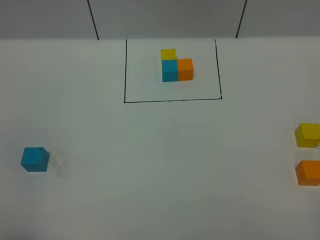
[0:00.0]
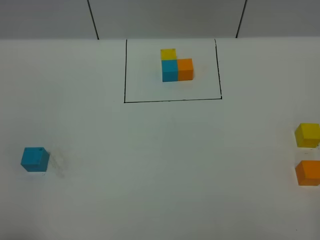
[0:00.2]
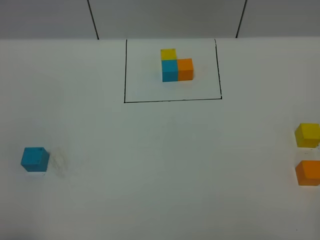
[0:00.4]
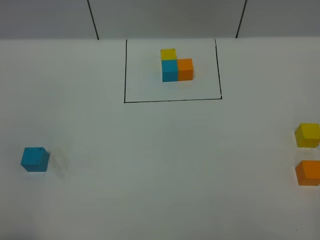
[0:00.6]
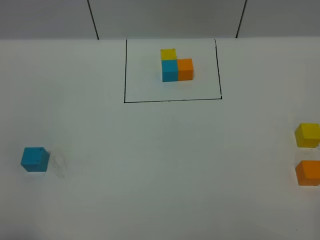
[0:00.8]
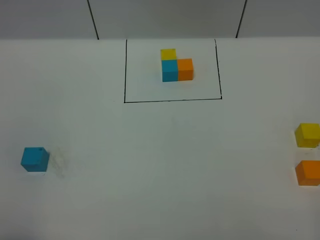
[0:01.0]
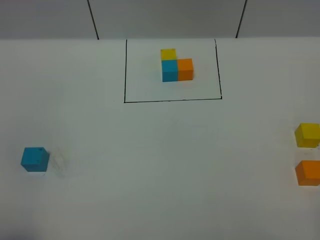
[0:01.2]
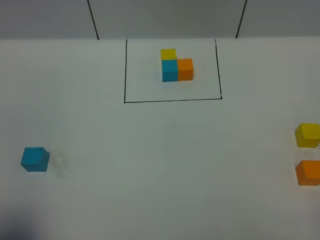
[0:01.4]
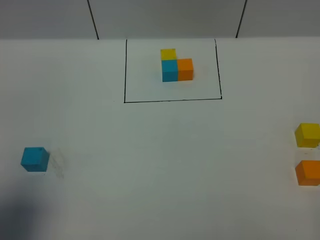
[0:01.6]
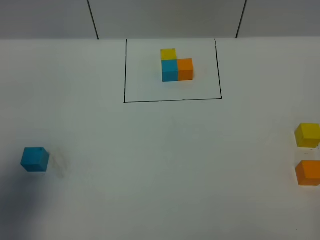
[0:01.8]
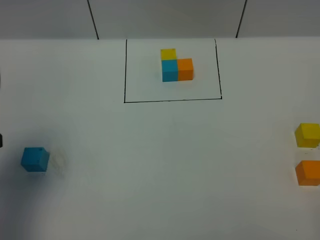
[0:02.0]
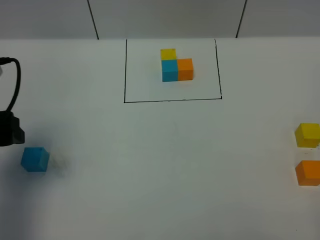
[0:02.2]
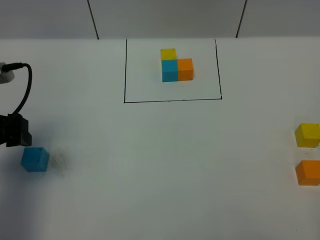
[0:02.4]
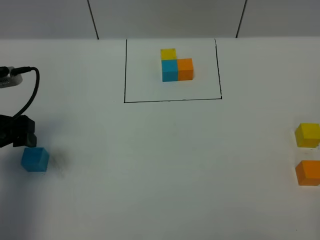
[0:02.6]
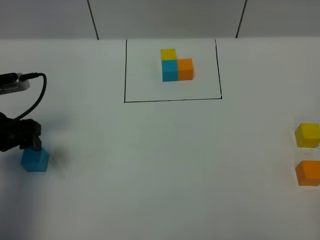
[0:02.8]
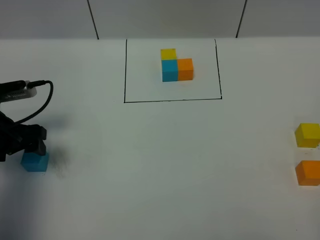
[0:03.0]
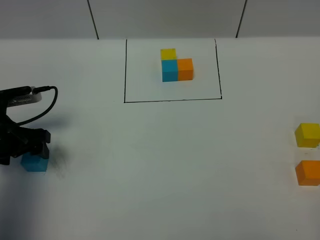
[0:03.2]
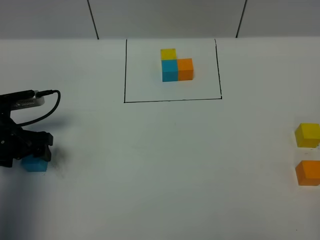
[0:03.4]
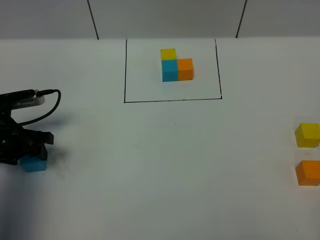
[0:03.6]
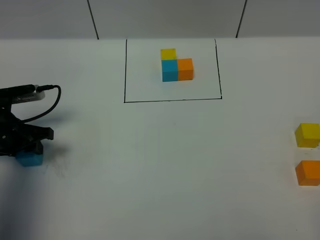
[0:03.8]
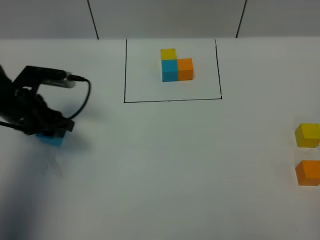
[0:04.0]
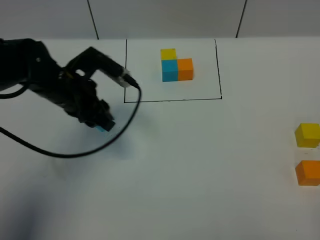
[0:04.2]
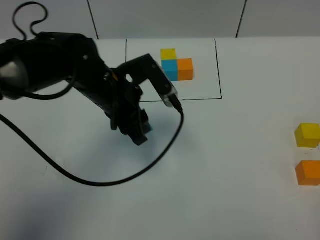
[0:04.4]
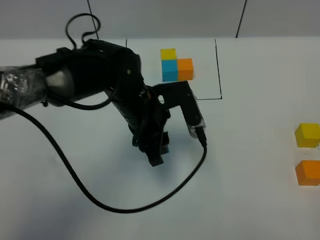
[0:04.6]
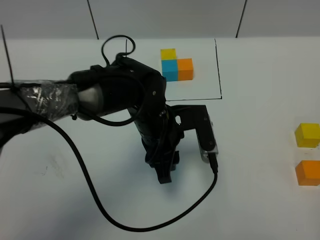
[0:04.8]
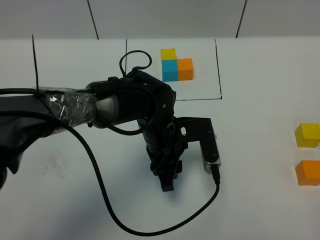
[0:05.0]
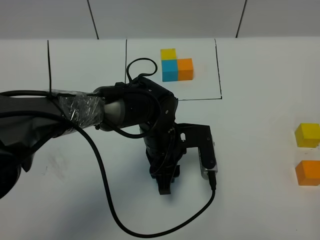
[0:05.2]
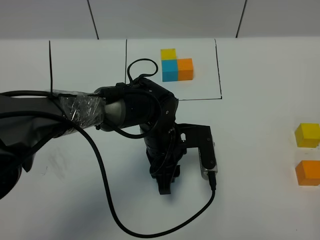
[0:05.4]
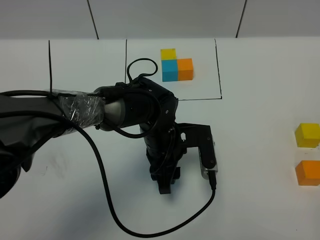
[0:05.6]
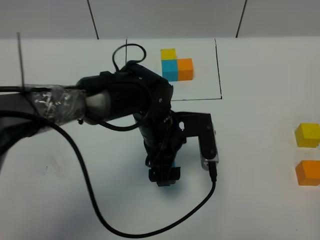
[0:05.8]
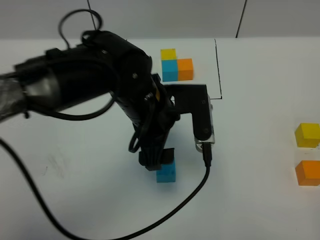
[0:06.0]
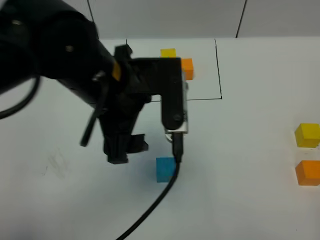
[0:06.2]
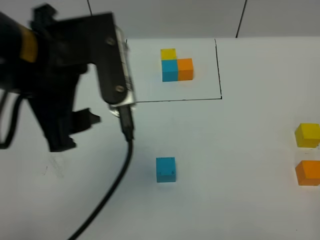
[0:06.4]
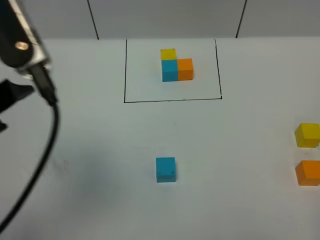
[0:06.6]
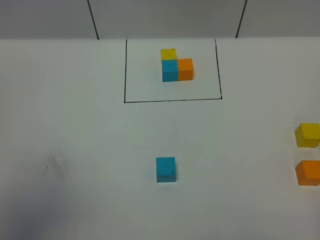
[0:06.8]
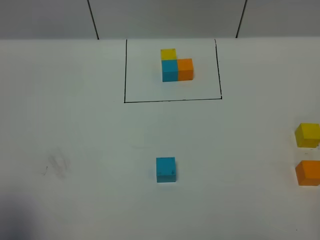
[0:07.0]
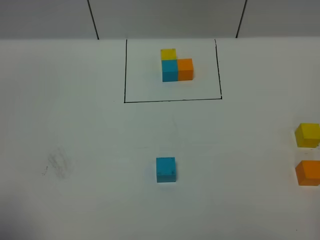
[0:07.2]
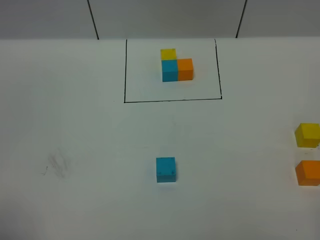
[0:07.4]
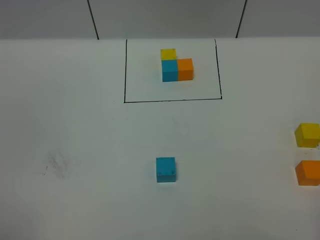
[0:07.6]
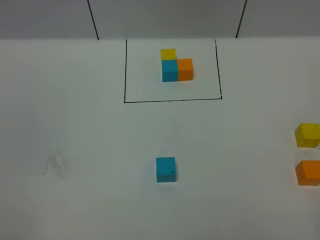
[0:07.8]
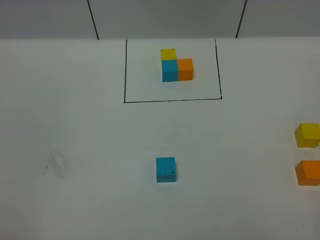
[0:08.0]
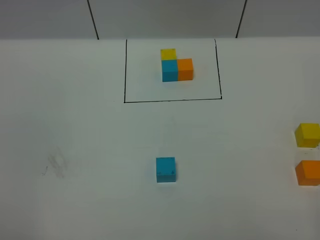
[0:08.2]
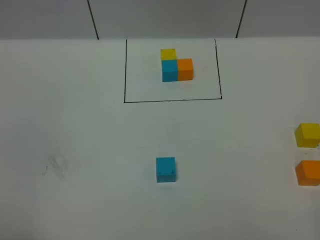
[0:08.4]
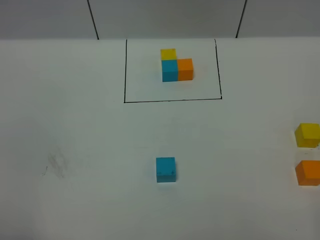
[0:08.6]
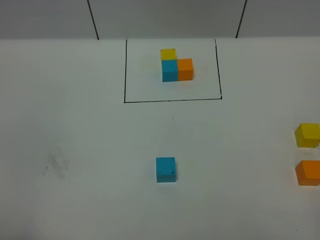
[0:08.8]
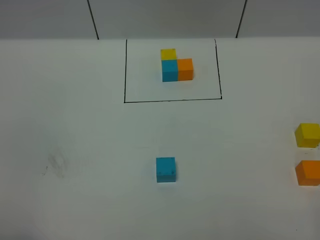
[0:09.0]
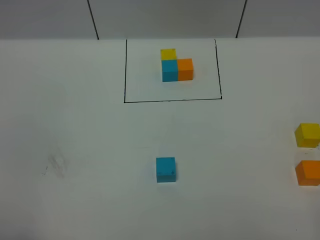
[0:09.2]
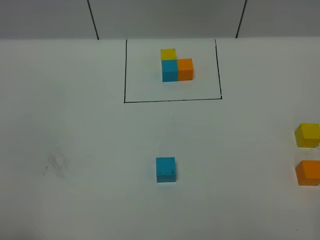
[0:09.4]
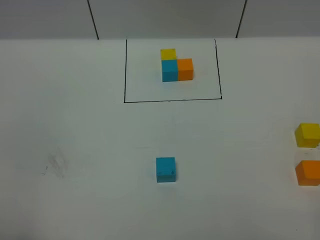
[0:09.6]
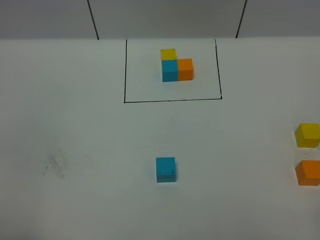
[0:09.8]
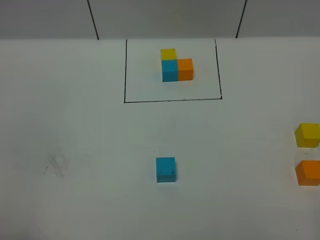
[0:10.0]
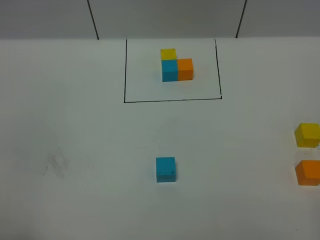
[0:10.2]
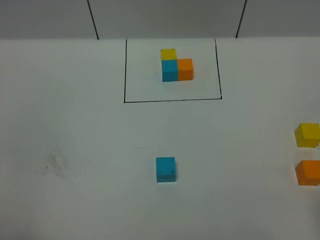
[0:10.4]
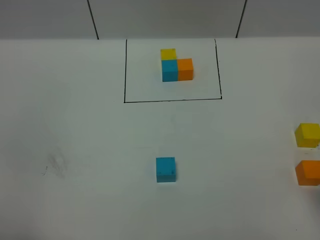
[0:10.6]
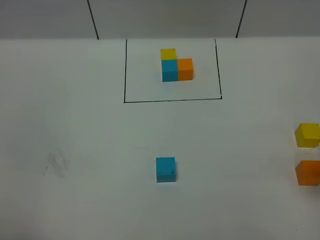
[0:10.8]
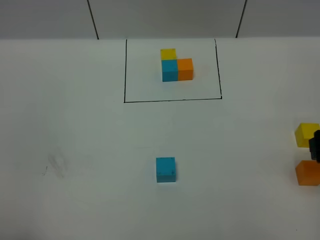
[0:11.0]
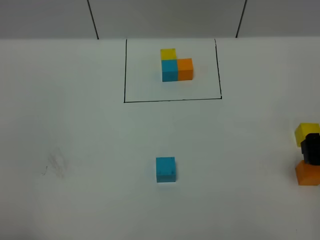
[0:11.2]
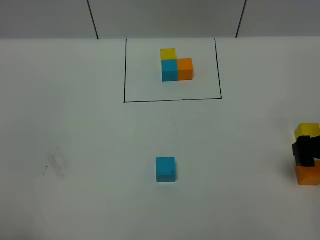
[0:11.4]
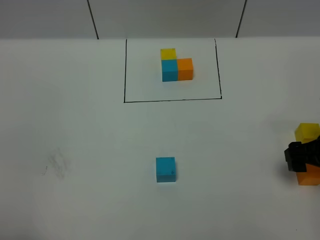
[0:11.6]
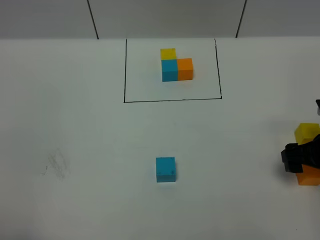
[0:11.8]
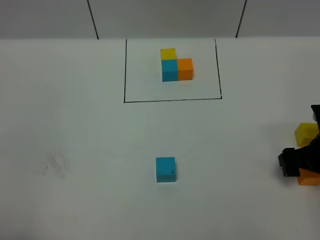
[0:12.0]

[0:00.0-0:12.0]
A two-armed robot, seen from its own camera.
Task of the whole recording: According to the building block template in front, assemble the scattered blocks together.
Step, 0:02.0 to 0:05.6: Put the blue cube in the center of the table.
0:00.0 to 0:01.6: The left gripper shifts some 10 cm forward.
0:01.6 to 0:03.0: The left gripper shifts some 25 cm forward and downward.
0:03.0 to 0:04.4: The left gripper moves to the right, roughly 20 cm, and closes.
0:04.4 to 0:06.0: The left gripper heads to the right and backward, covering roughly 10 cm, travels downward and back again, approximately 10 cm each way, and opens up.
0:06.0 to 0:07.6: The left gripper heads to the left and backward, covering approximately 40 cm.
0:10.4 to 0:12.0: The right gripper moves forward and downward, roughly 25 cm.

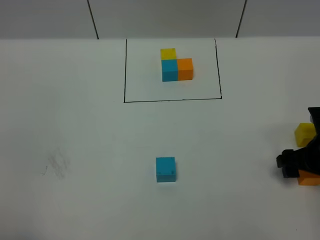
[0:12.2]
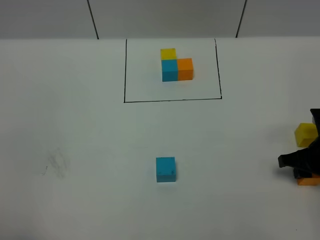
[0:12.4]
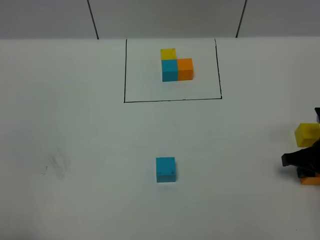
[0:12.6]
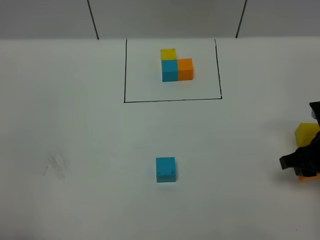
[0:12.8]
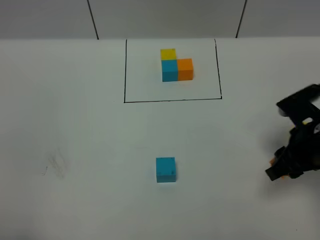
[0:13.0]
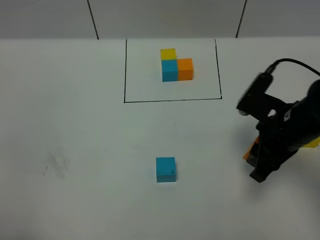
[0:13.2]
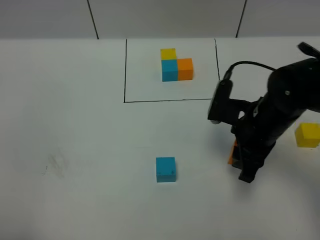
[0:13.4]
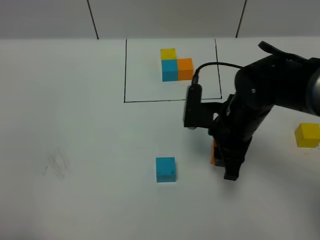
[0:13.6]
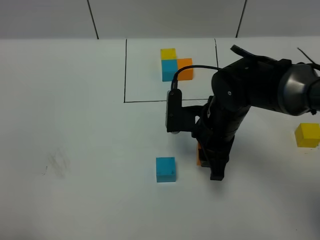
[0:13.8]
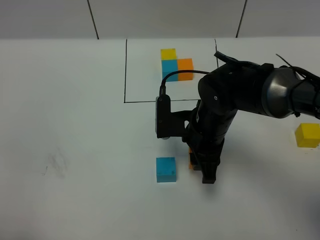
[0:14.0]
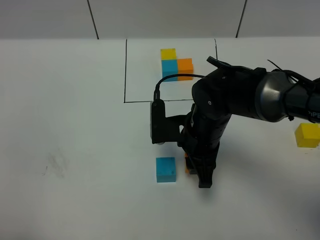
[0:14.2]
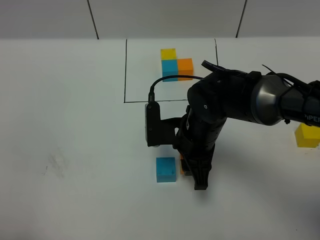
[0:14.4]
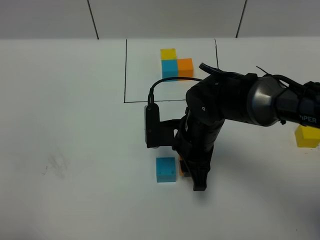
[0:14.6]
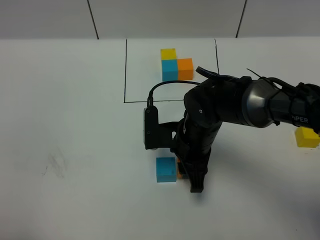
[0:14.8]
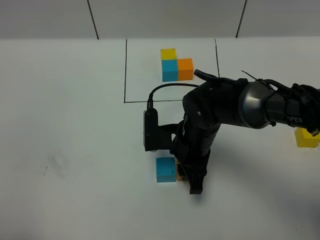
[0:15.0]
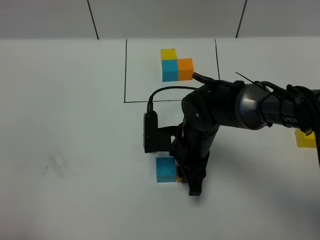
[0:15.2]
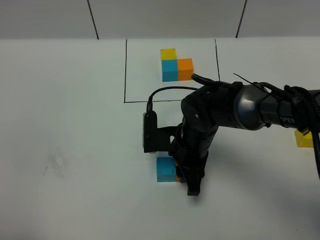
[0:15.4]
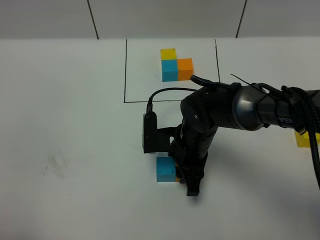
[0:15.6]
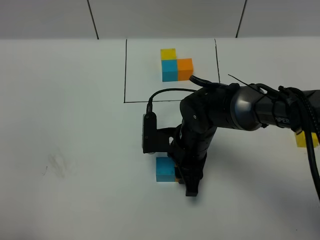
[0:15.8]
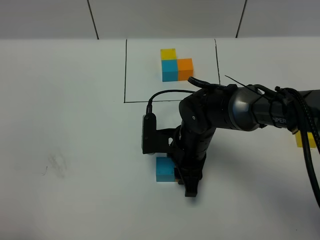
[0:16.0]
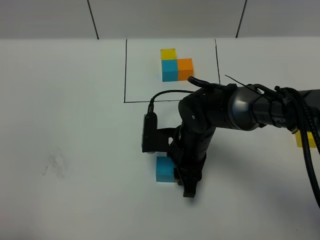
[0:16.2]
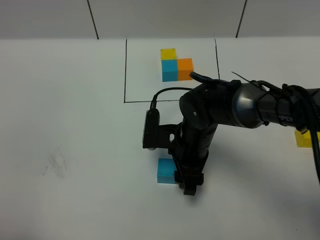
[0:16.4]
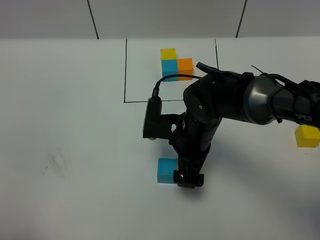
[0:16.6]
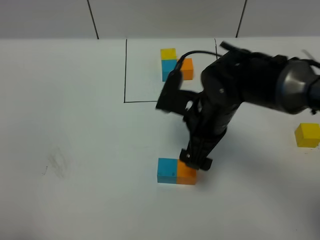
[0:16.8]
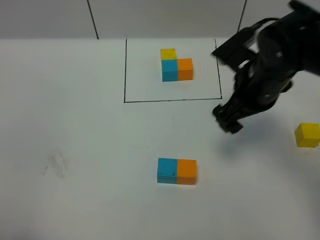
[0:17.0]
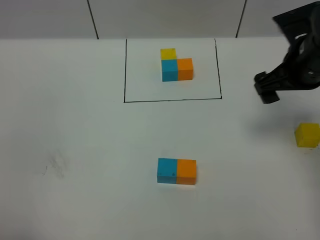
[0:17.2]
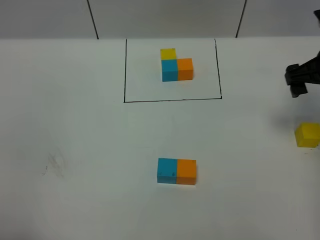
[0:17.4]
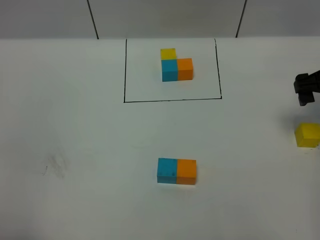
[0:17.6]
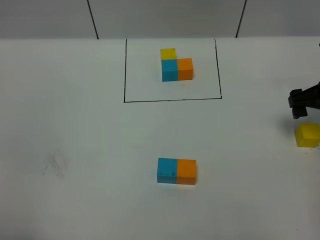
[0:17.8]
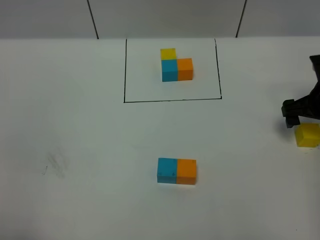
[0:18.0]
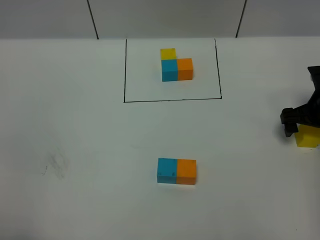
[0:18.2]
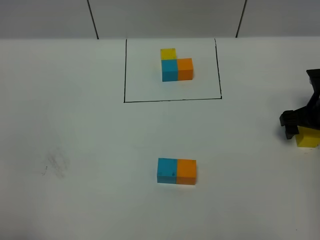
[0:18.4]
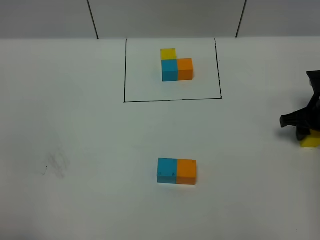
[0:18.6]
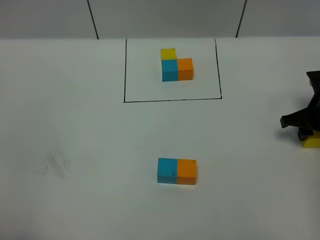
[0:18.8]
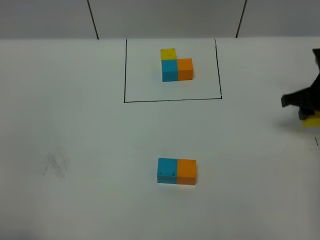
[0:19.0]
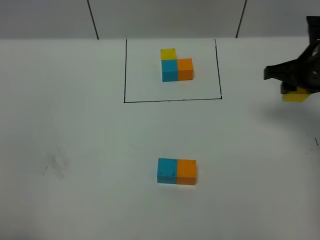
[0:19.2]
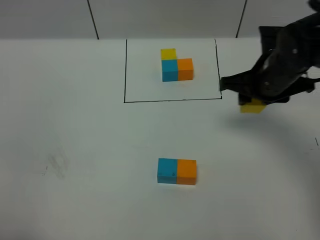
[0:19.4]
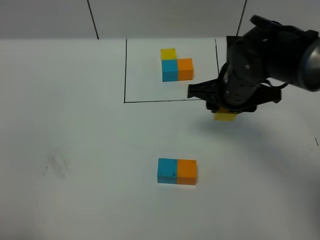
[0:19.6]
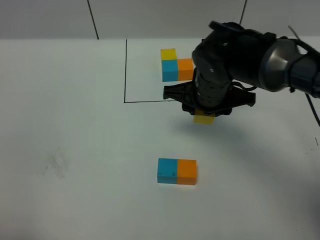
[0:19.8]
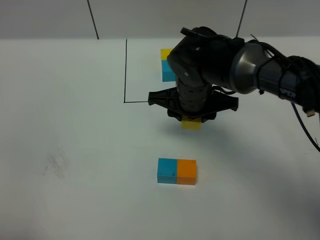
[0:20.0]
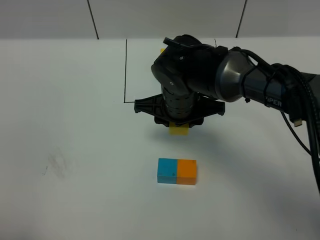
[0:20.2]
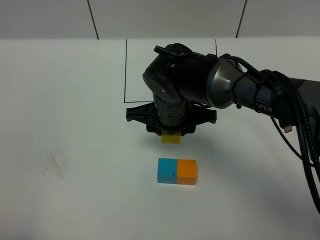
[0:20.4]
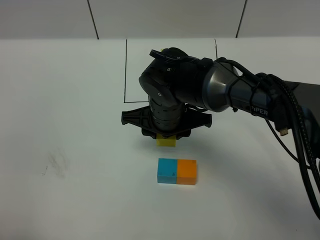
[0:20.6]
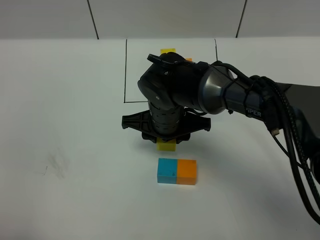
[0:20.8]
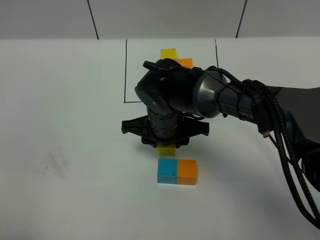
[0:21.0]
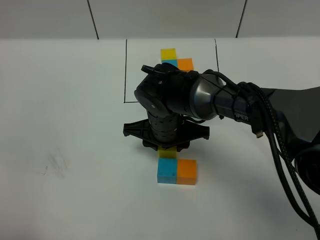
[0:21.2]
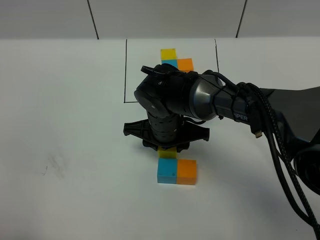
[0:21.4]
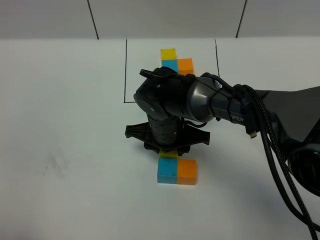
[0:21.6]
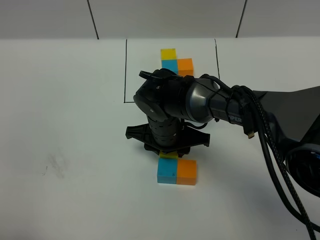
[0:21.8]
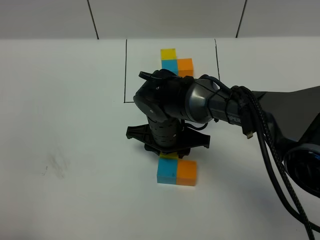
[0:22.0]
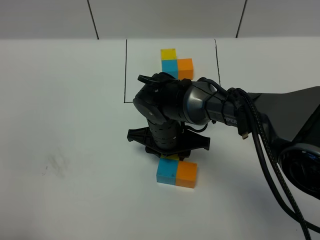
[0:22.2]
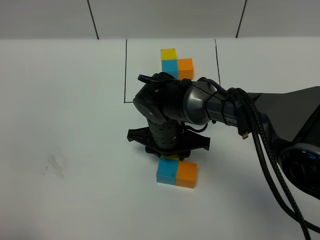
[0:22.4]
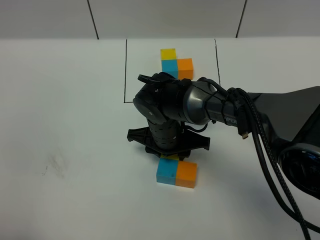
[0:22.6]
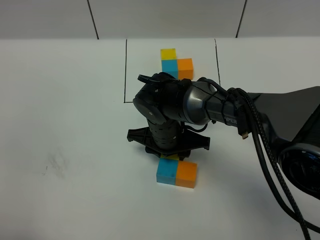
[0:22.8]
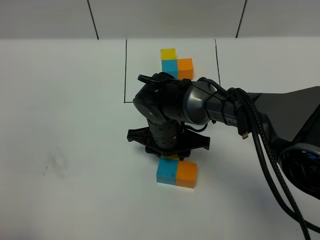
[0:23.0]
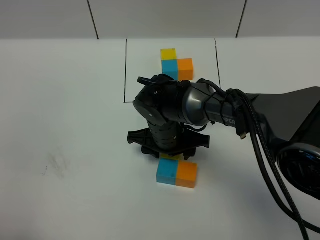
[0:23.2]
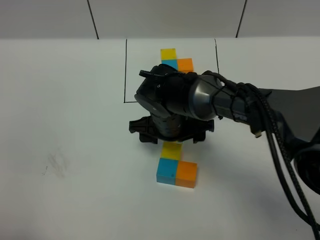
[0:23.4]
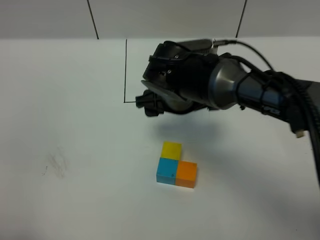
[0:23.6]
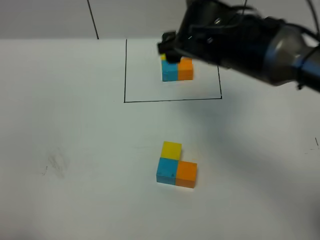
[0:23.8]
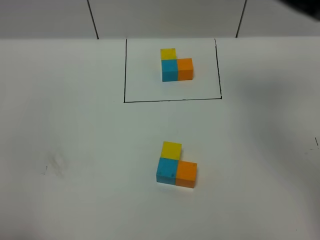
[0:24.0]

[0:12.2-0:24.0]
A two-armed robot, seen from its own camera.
Task of the whole recording: According to the building block template in front, assemble the scattered blocks together.
Step, 0:12.2 to 0:16.2: Put the orange cube on the right of the blue cube.
Step, 0:16.4 to 0:23.0: Put the yellow cube on the behind of the blue cube.
0:12.2 to 0:13.6: The right gripper goes approximately 20 cm to the left, and closes up.
0:13.6 to 0:15.2: The right gripper shifts some 10 cm to the left and downward.
0:15.2 to 0:16.6: The right gripper opens up.
0:16.6 to 0:18.2: The right gripper is displaced to the right by roughly 25 cm.
0:18.2 to 0:19.6: The right gripper heads to the left, covering roughly 20 cm, and closes up.
0:19.6 to 0:21.0: The right gripper goes some 15 cm to the left and downward.
0:21.0 to 0:22.6: The grippers make only small movements.
0:22.6 to 0:24.0: The right gripper goes roughly 35 cm upward and to the right, and opens up.
